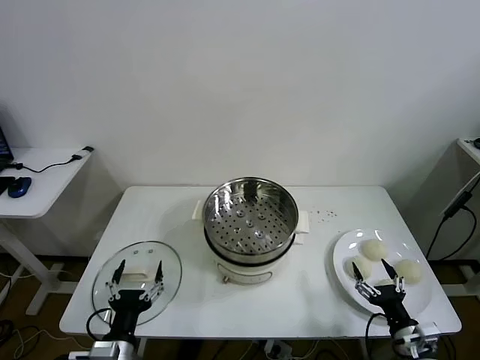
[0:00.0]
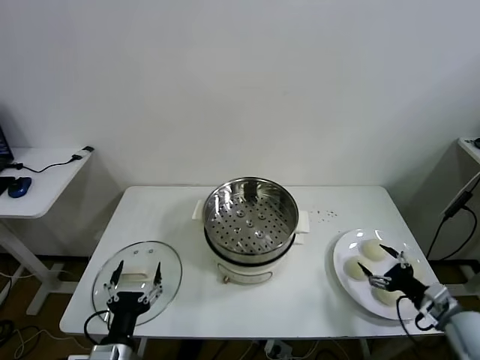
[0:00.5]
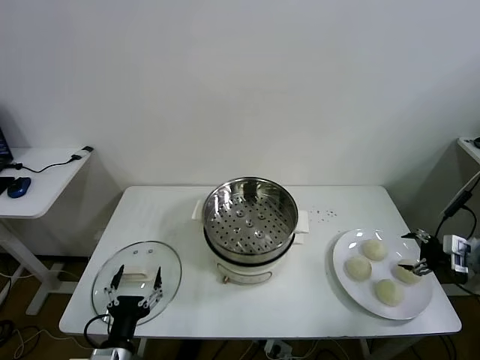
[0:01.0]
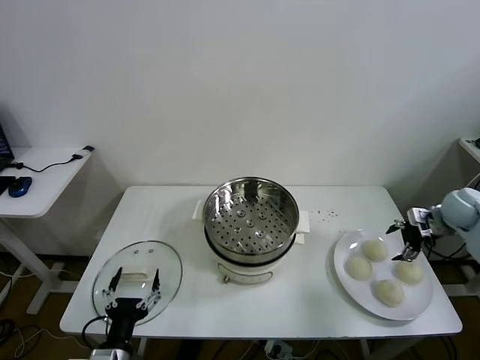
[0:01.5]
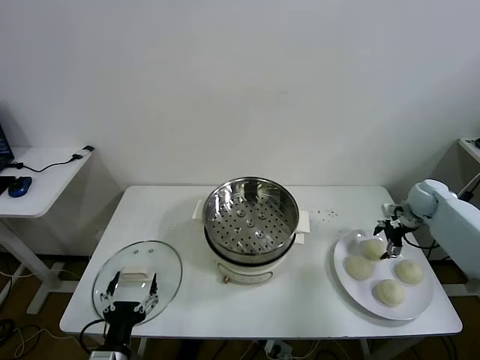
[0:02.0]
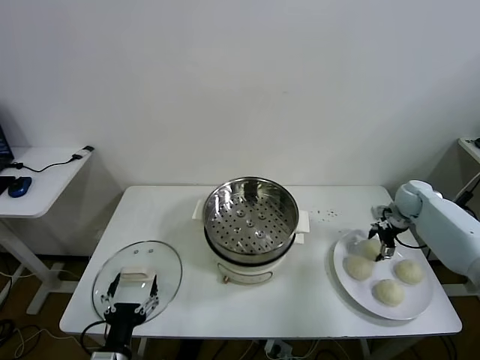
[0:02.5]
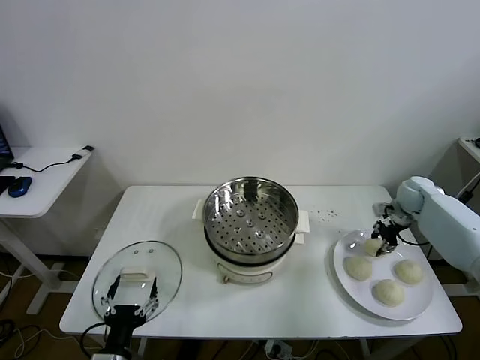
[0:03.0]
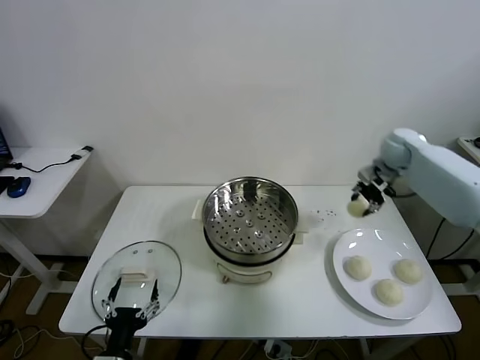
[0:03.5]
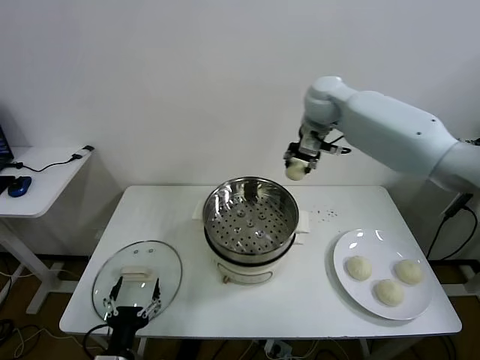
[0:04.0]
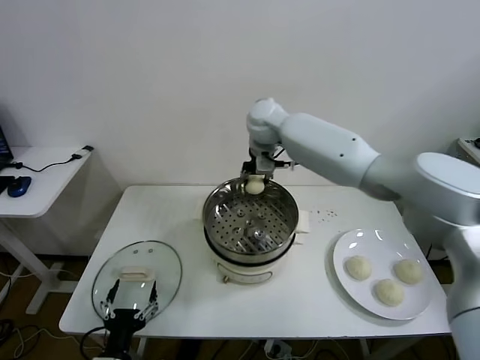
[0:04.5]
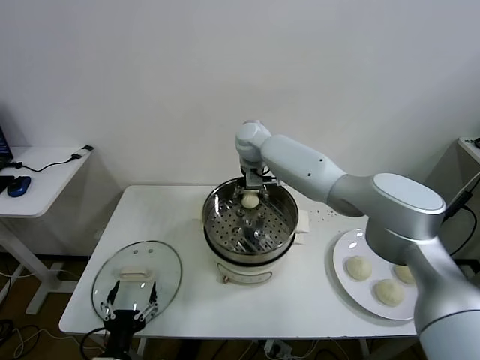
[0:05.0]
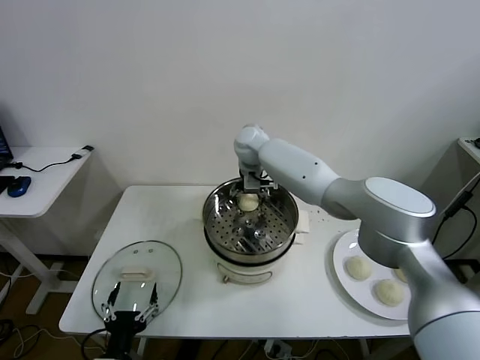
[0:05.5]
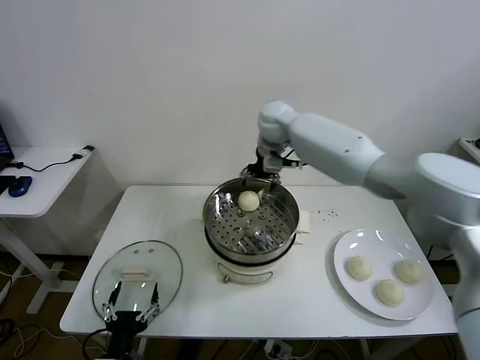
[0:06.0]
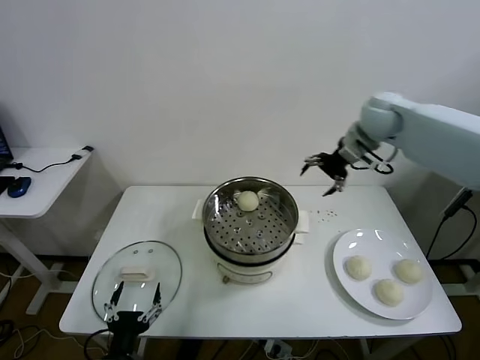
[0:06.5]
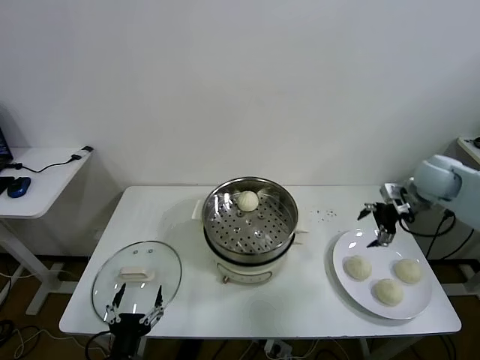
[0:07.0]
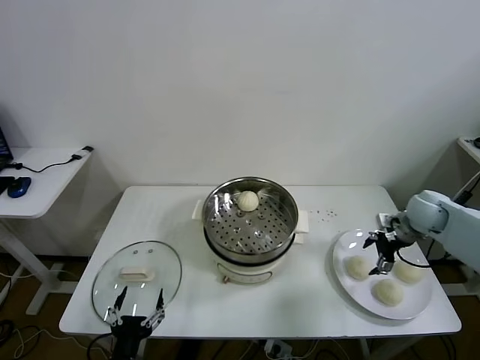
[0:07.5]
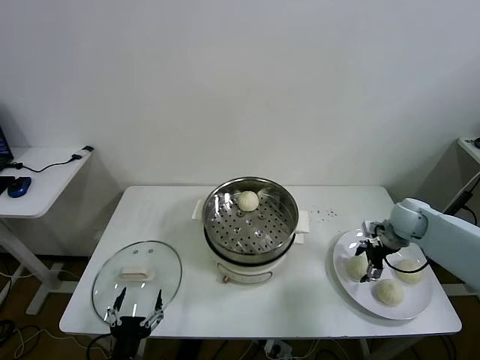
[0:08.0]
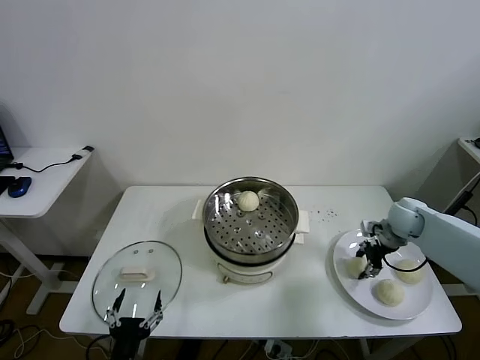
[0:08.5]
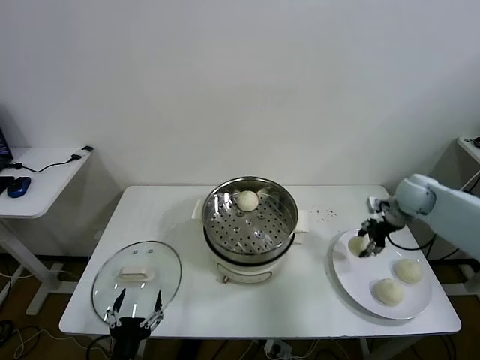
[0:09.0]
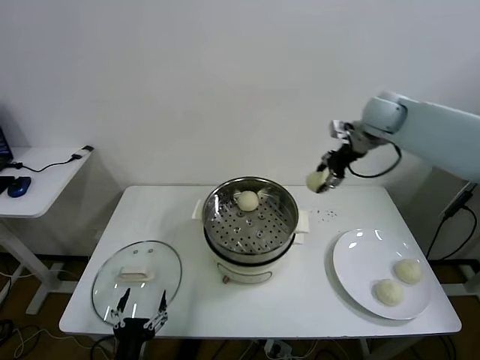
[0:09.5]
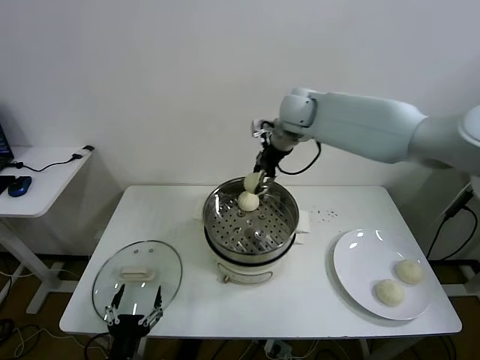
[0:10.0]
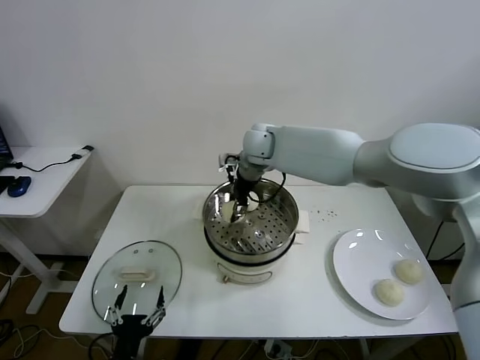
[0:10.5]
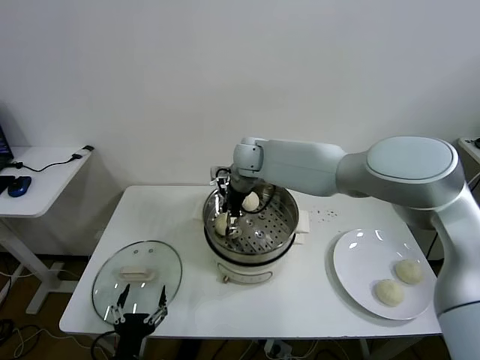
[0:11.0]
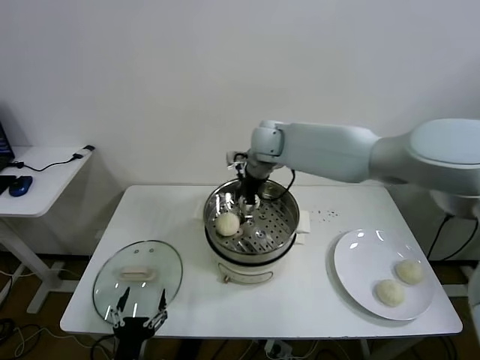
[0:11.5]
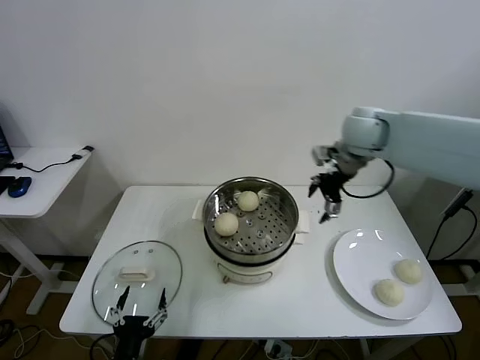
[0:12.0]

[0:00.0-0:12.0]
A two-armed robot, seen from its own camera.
Task of the whole recording: take steamed baozi put them in steamer.
Step, 0:00.0 to 0:02.5: Grasp the baozi in the plate with right gripper.
Step, 0:03.0 to 0:05.5: Place the baozi on the steamer with right gripper.
Step, 0:06.0 to 0:08.0: Grasp the baozi in the plate with right gripper.
Step, 0:08.5 to 0:11.0: Place the baozi on the steamer with right gripper.
0:02.0 to 0:04.0: The right gripper goes about 40 cm to the left and upward, and closes up.
0:04.0 to 0:06.0: The right gripper shifts approximately 10 cm to the left and downward, and opens up.
0:06.0 to 0:08.0: The right gripper moves to the right, downward and backward, about 40 cm.
0:08.0 to 0:10.0: The right gripper travels to the left, upward and forward by roughly 40 cm, and closes.
0:10.0 to 0:12.0: The right gripper moves to the right and backward, roughly 15 cm, and opens its fingers.

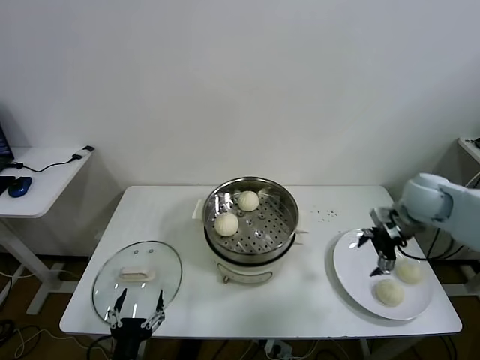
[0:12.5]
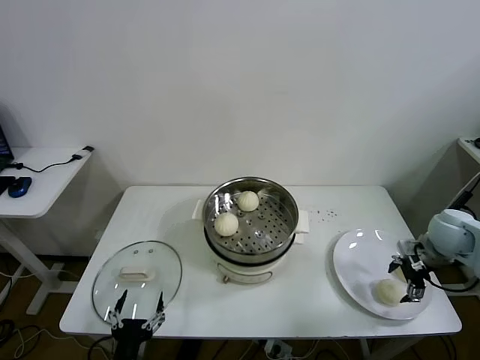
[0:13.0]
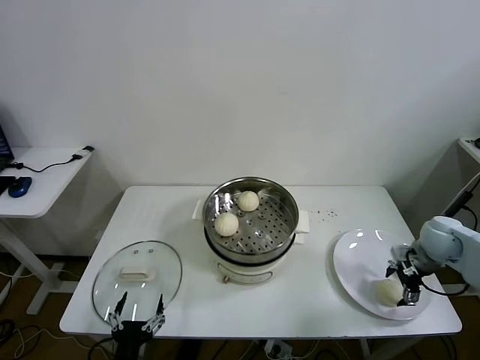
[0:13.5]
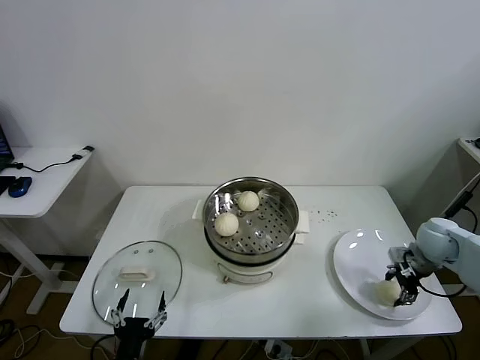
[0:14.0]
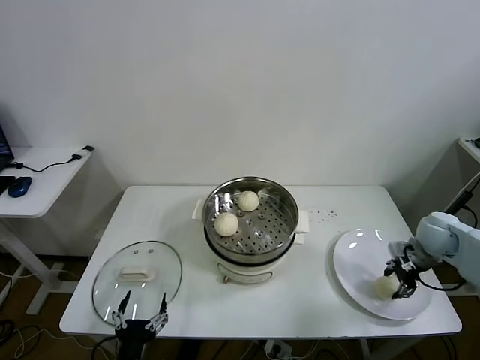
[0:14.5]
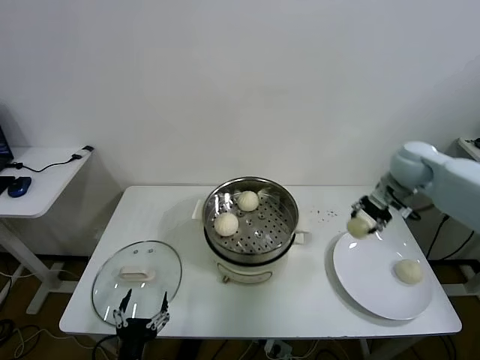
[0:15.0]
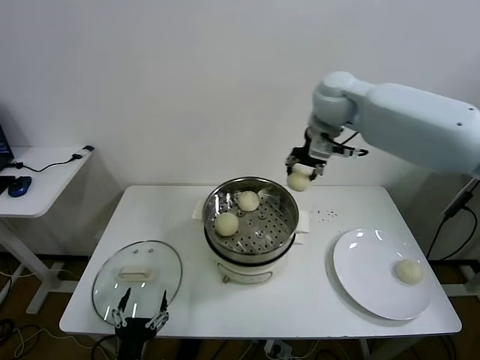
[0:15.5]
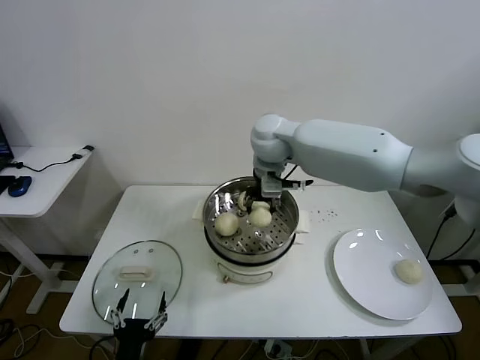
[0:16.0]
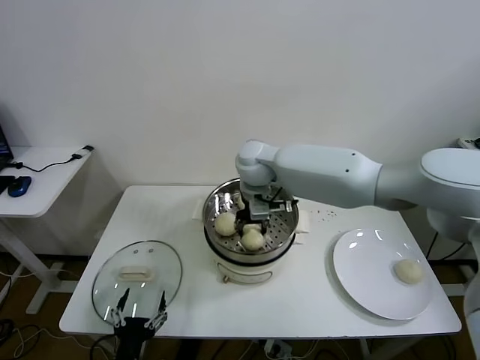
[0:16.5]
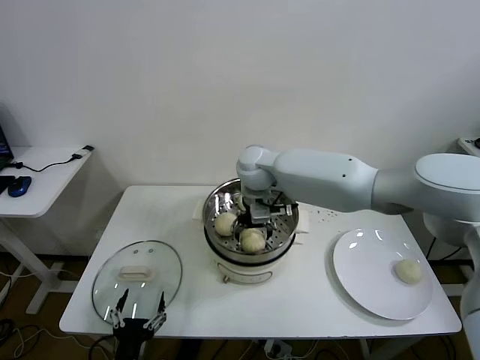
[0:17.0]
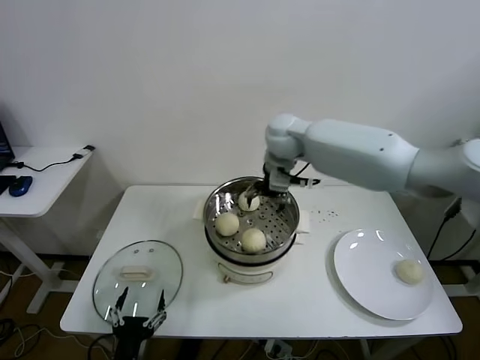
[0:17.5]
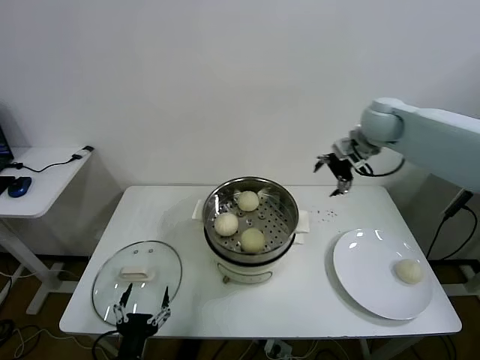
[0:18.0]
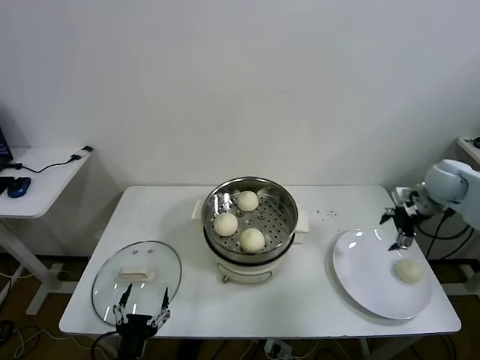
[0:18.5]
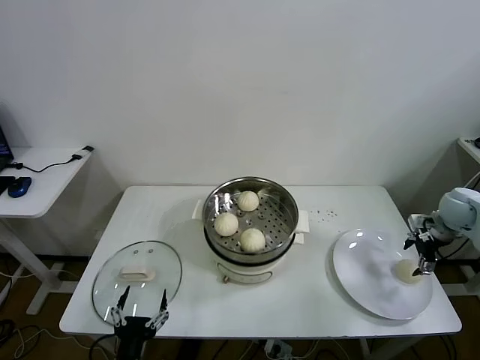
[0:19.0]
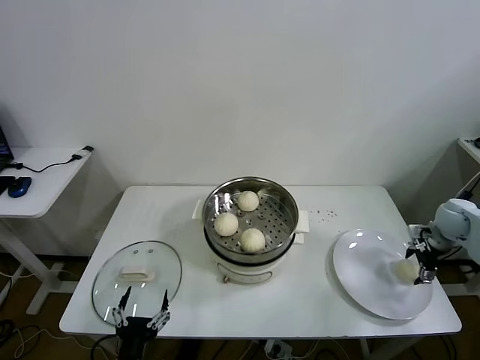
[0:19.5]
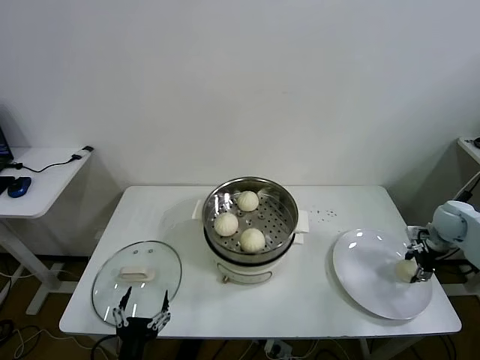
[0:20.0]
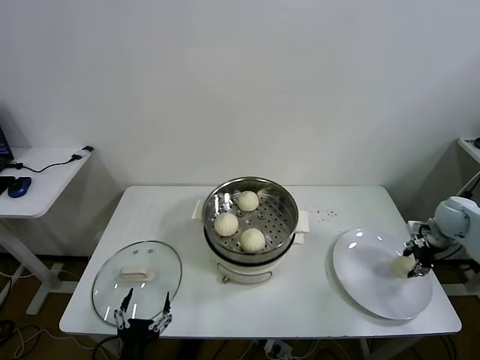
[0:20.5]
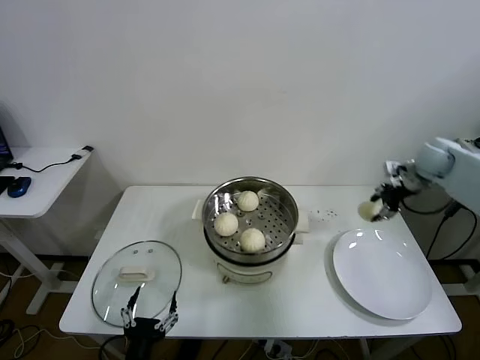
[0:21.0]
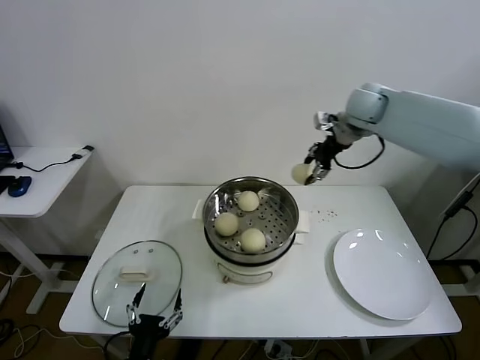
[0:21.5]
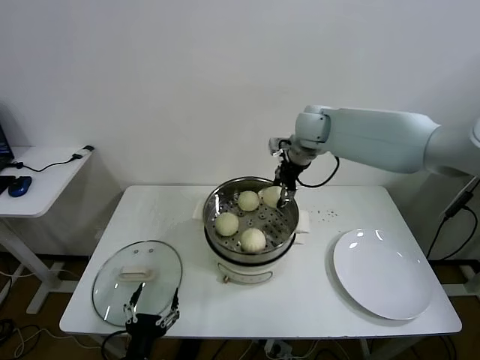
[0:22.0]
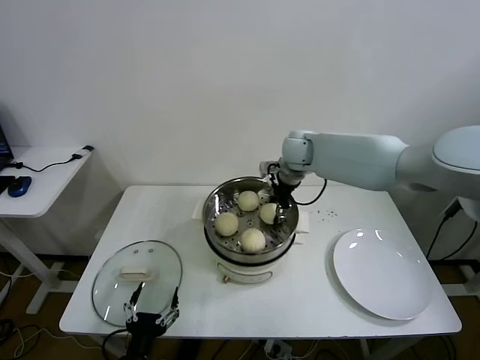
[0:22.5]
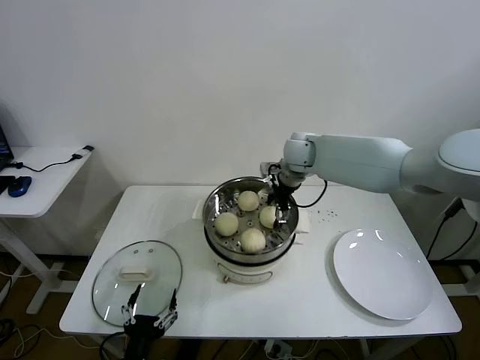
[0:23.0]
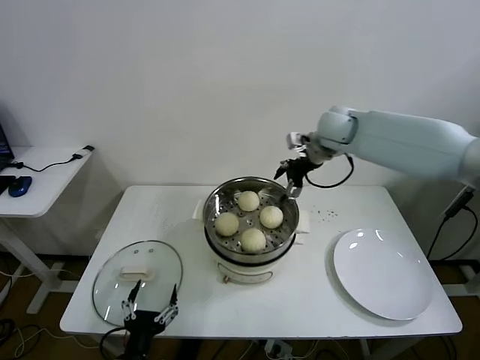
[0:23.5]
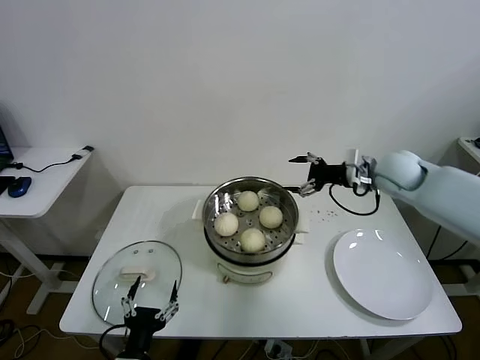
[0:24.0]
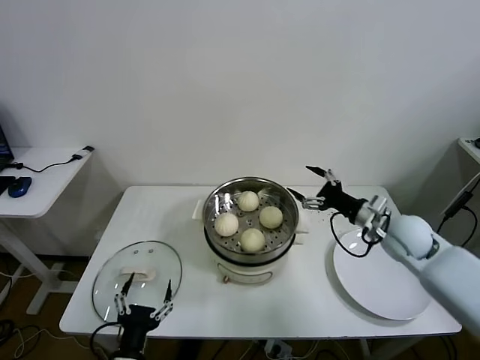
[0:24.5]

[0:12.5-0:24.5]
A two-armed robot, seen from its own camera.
Task of the whole recording: take steamed baozi put them in steamer.
Step, 0:12.5 to 0:14.0: Grasp the baozi in the plate with right gripper.
Step, 0:14.5 to 0:17.0: Place the baozi on the steamer with right gripper.
Step, 0:17.5 to 0:20.0: Grasp the baozi in the plate with right gripper.
Step, 0:20.5 to 0:23.0: Place the baozi on the steamer with right gripper.
0:12.5 to 0:14.5: The right gripper shifts some 10 cm downward and to the right, and closes up.
0:14.5 to 0:16.5: The right gripper is displaced to the left by approximately 40 cm.
0:16.5 to 0:18.5: The right gripper moves to the right, some 40 cm, and opens its fingers.
0:18.5 to 0:20.5: The right gripper travels downward and to the right by about 10 cm, and closes.
0:20.5 to 0:22.5: The right gripper goes some 40 cm to the left.
0:22.5 to 0:24.5: The right gripper shifts approximately 30 cm to the right, backward and downward, and opens its fingers.

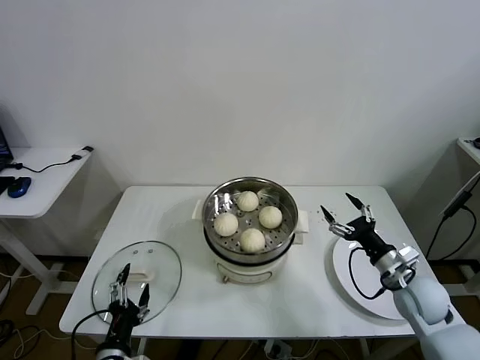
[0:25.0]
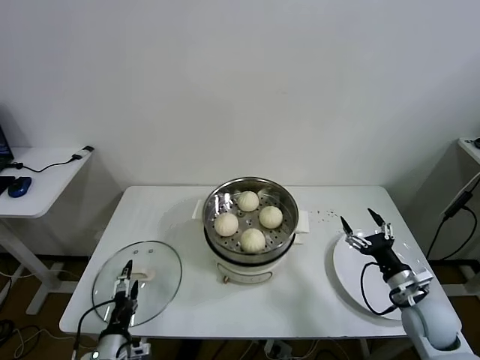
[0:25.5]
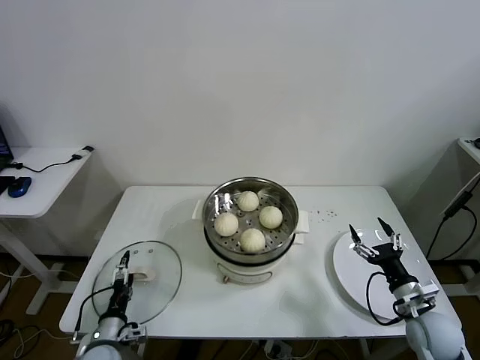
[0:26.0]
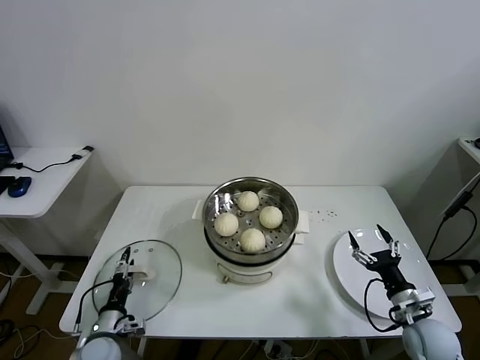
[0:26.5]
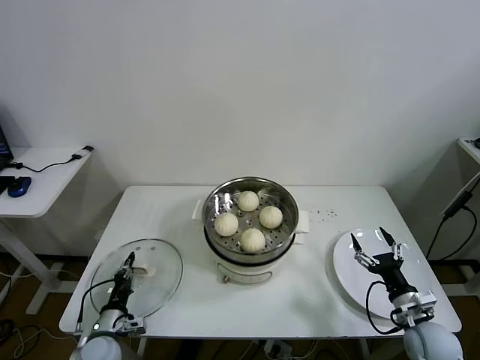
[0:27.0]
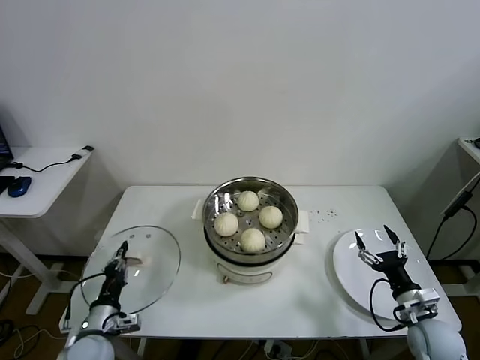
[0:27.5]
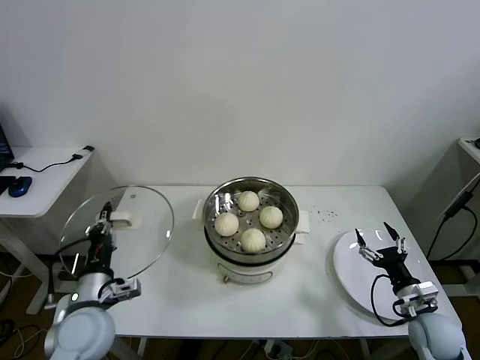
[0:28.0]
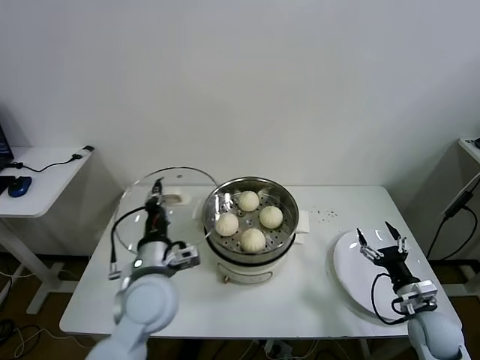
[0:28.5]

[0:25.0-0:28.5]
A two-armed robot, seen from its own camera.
Task of the whole recording: take steamed baozi put them in steamer.
Step, 0:25.0 to 0:27.0: Grasp the pot lid with left gripper.
0:25.0 to 0:27.0: The right gripper is displaced backward and downward by about 10 cm, while the left gripper moves forward, downward and to the left, approximately 15 cm, and closes.
0:27.0 to 0:28.5: The left gripper shifts some 30 cm upward and to the right.
